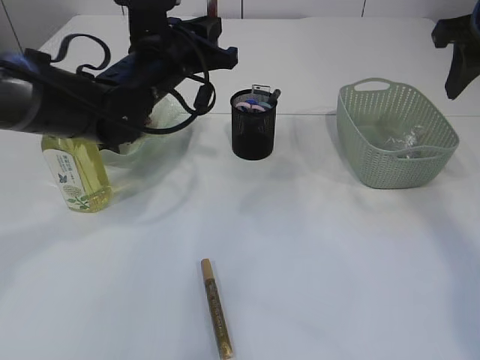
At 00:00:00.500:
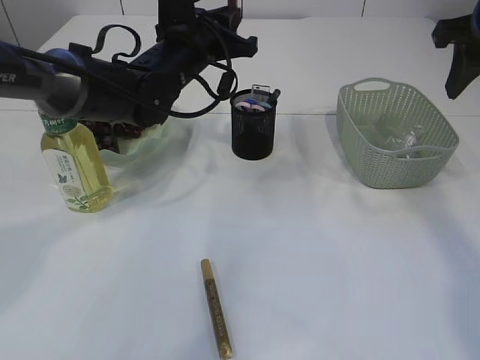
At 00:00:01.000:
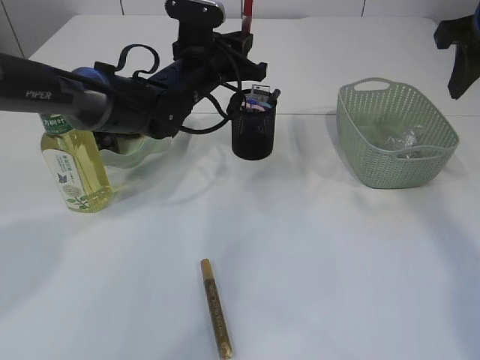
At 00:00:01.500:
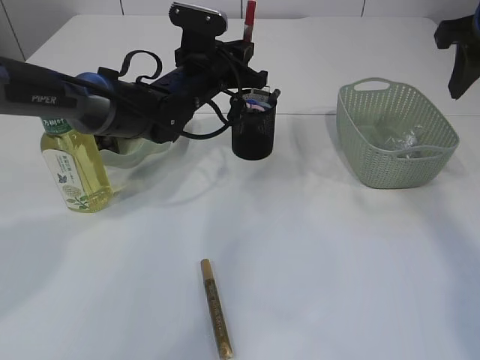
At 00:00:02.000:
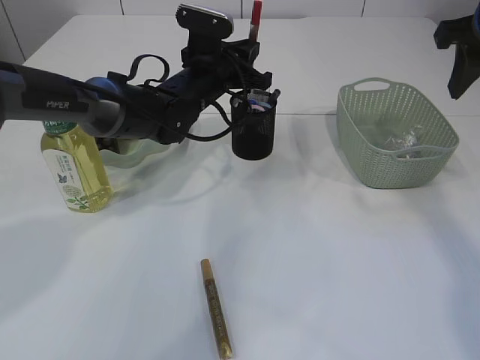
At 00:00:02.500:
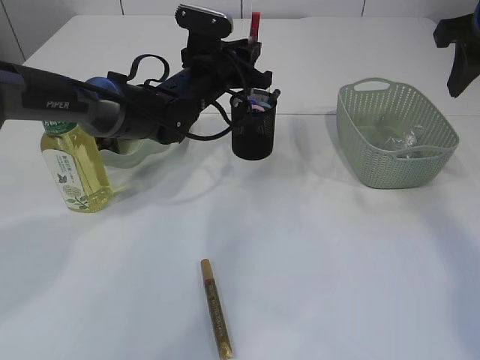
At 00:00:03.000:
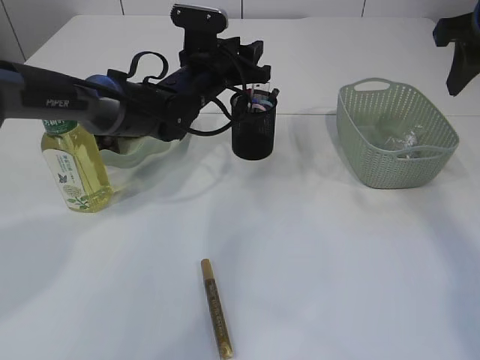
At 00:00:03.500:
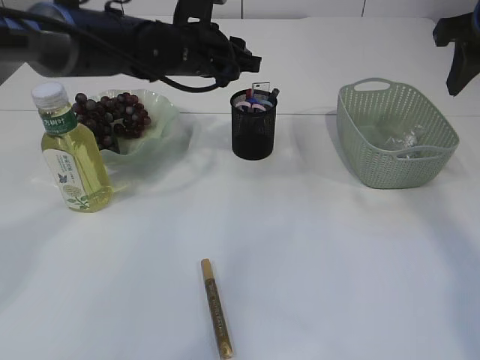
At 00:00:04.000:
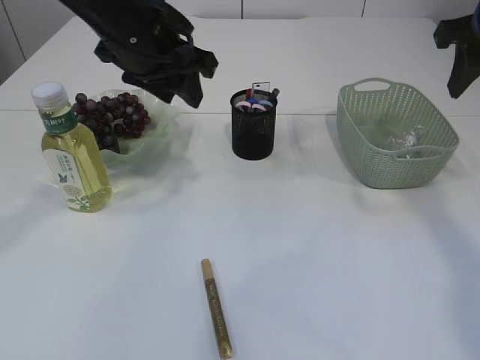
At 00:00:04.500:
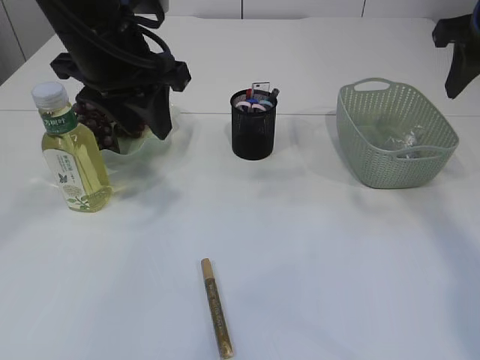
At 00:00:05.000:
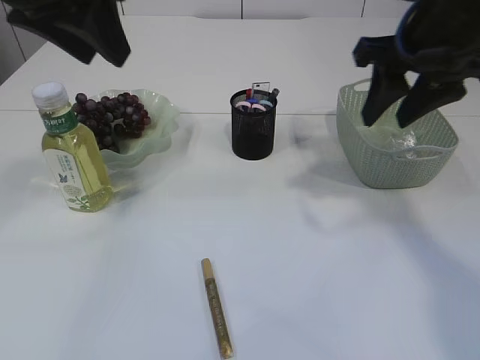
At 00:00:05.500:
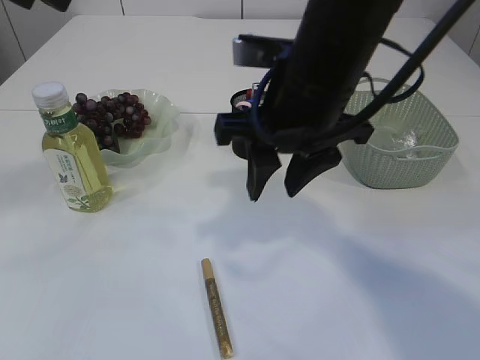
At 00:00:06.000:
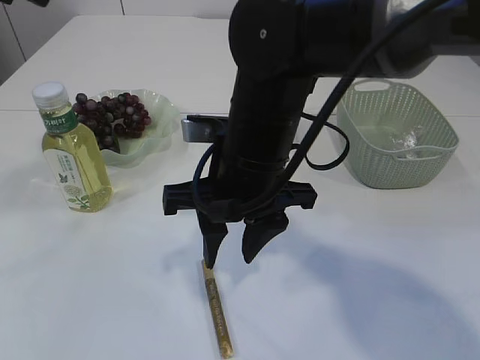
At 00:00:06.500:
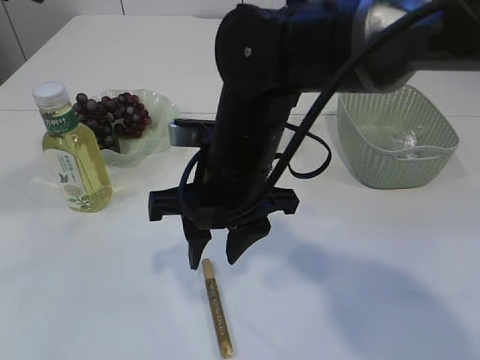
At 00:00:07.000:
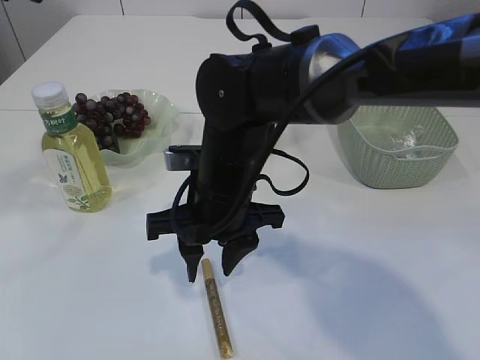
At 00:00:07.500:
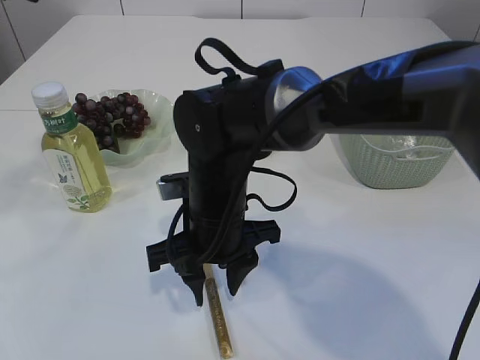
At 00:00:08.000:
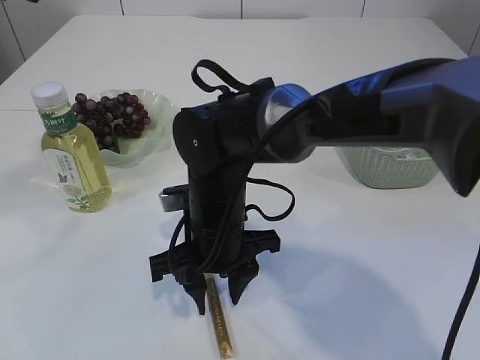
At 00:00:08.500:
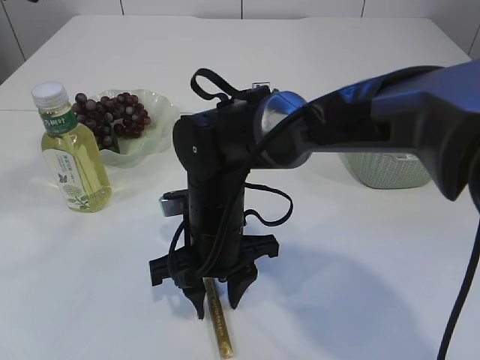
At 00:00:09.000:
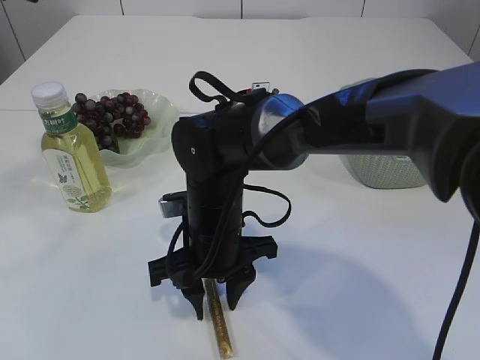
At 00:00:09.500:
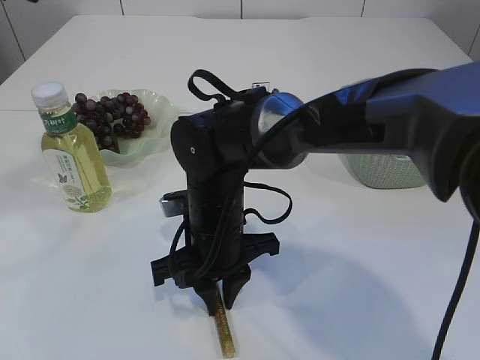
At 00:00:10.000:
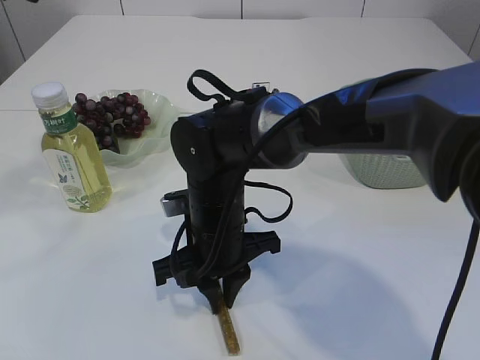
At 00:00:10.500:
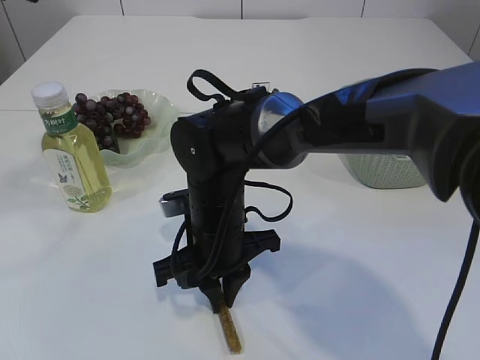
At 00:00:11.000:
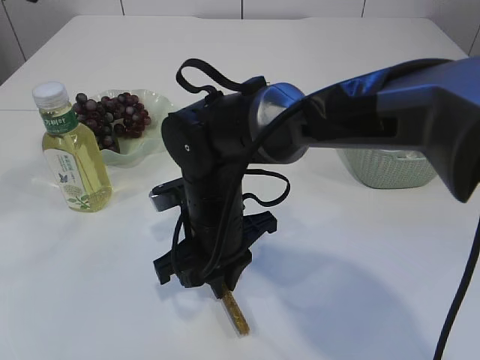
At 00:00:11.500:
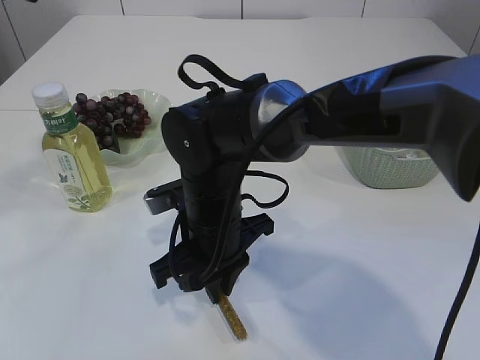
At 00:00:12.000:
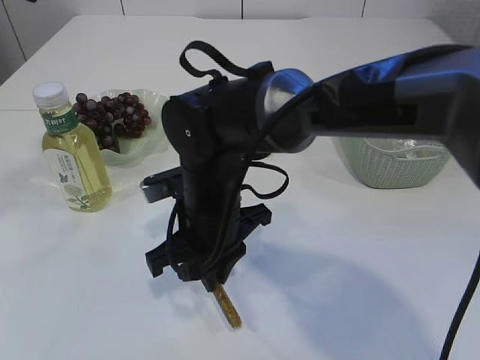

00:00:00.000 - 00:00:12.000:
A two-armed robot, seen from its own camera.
Step, 00:00:00.000 - 00:00:03.500: place the red glue into the pen holder.
00:00:00.000 - 00:00:02.000: The left gripper heads forward, covering approximately 5 cm.
00:00:02.000 - 00:00:04.000: The left gripper shifts roughly 15 cm upward, backward and to the left, and opens.
00:00:04.000 - 00:00:06.000: The left gripper heads upward, backward and to the left, covering approximately 20 cm; the right gripper goes some 30 cm to the left and downward.
00:00:06.000 - 00:00:08.000: The right gripper shifts roughly 10 cm downward.
00:00:08.000 - 00:00:10.000: The right gripper closes up.
00:00:10.000 - 00:00:12.000: The grippers make only small movements.

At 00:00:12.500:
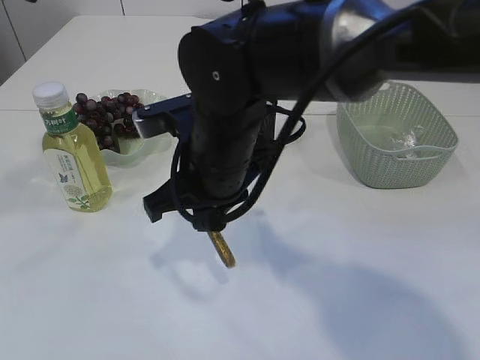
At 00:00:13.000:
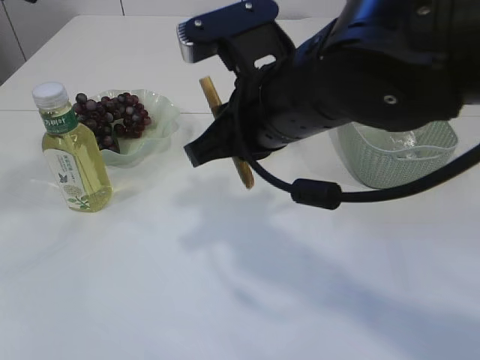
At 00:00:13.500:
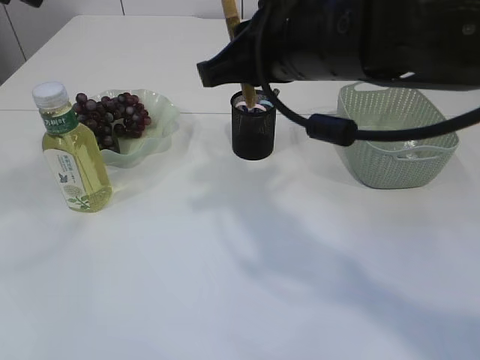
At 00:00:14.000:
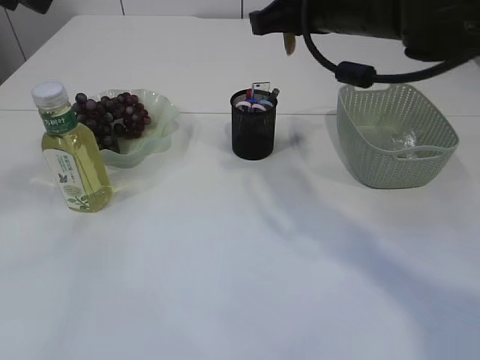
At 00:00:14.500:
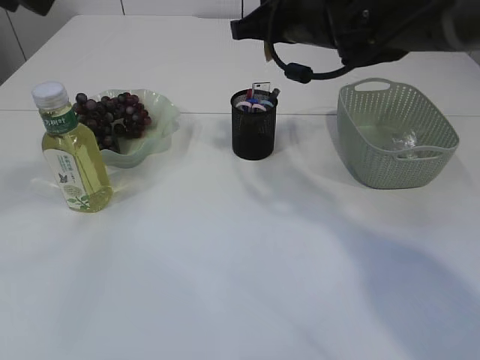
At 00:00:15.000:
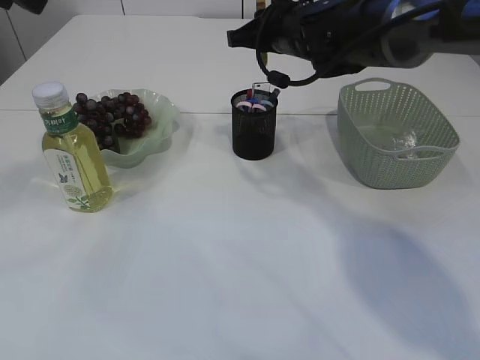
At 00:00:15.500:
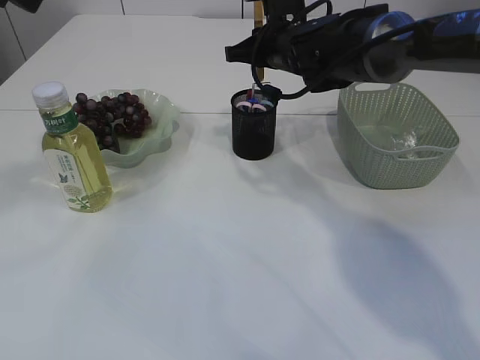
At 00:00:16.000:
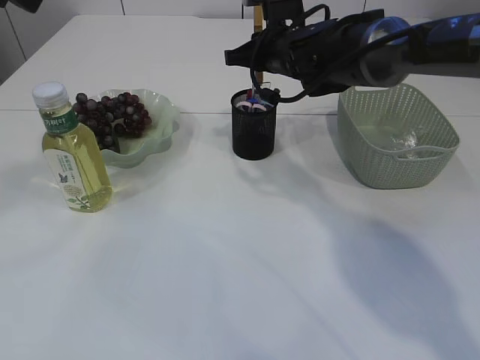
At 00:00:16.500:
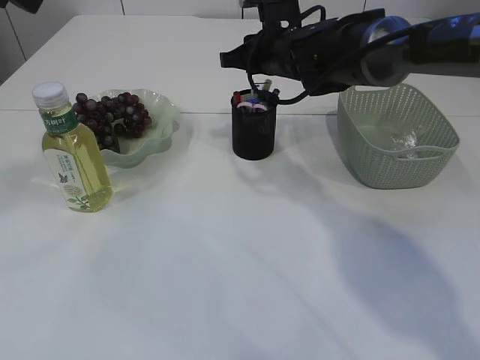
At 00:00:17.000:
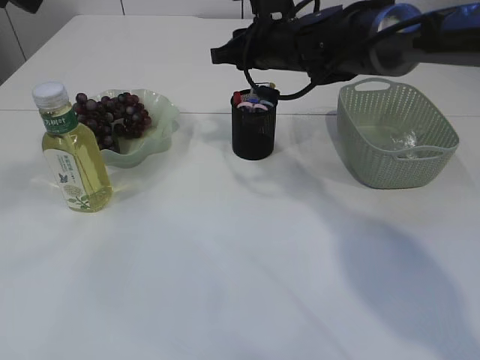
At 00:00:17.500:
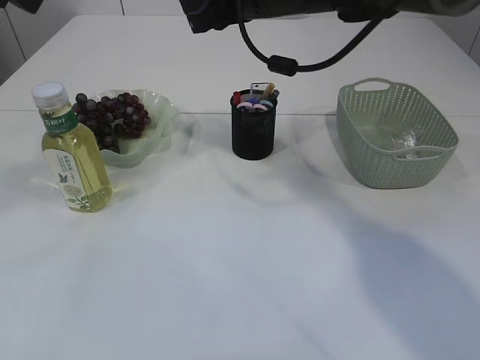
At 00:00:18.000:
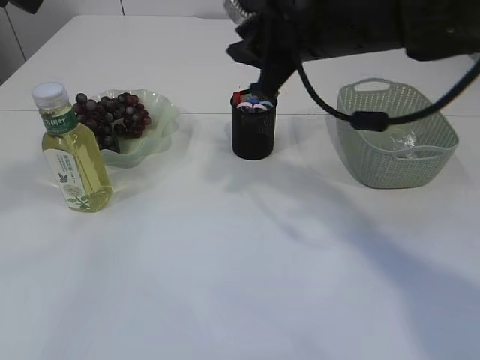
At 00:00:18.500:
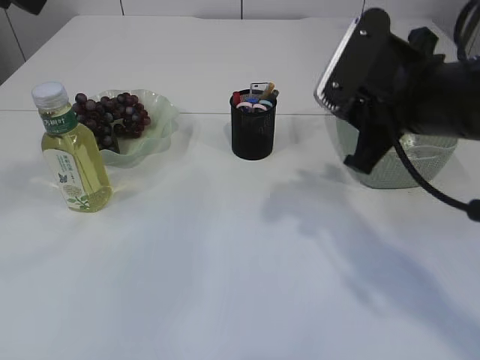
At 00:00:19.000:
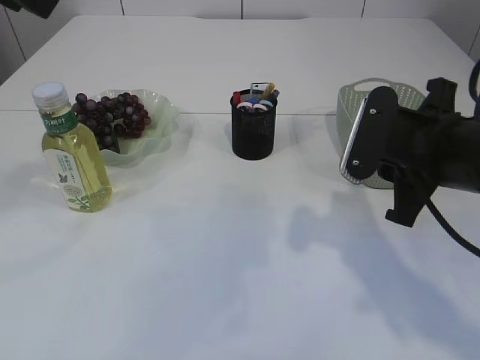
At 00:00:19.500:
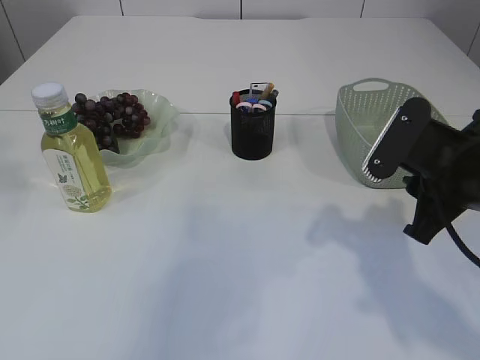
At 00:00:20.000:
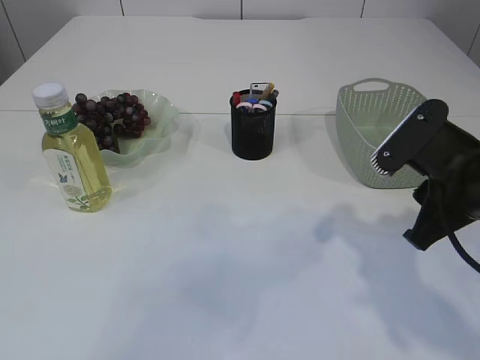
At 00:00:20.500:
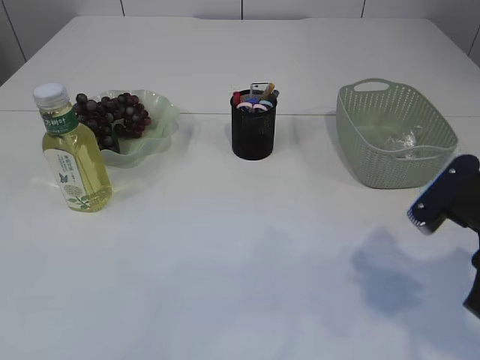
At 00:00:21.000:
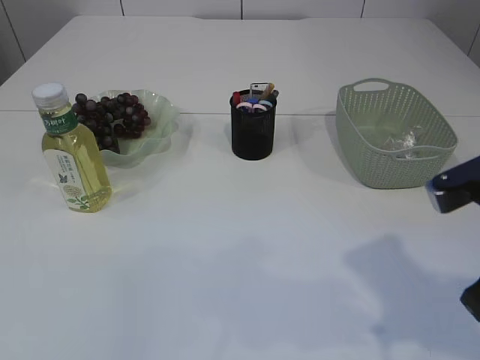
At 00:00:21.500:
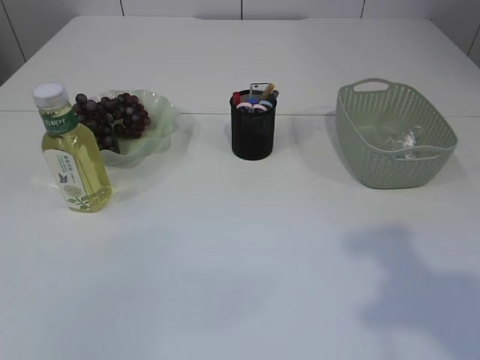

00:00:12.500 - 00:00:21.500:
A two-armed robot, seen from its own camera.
Step, 00:00:13.000 - 00:00:17.000: place the yellow glue into the pen holder.
00:00:12.500 - 00:00:14.500: The right gripper is displaced forward, to the right and upward by roughly 20 cm.
00:00:14.500 - 00:00:17.000: The right gripper goes roughly 10 cm forward and downward.
00:00:17.000 - 00:00:19.500: The left gripper travels to the left by approximately 10 cm. Meanwhile the right gripper shifts approximately 25 cm backward and to the right.
00:00:19.500 - 00:00:21.500: The right gripper moves upward and backward, about 20 cm.

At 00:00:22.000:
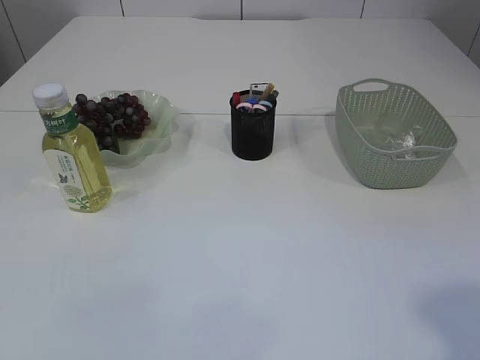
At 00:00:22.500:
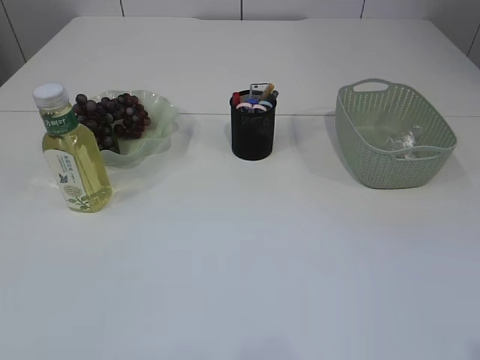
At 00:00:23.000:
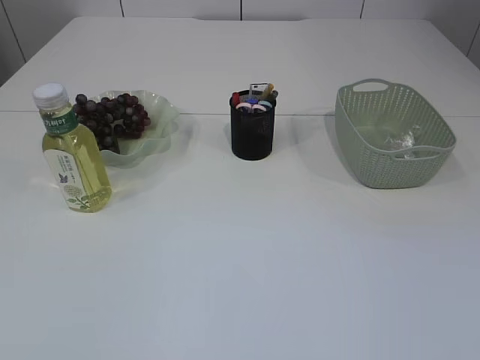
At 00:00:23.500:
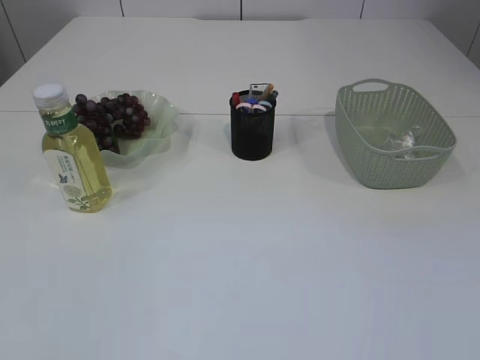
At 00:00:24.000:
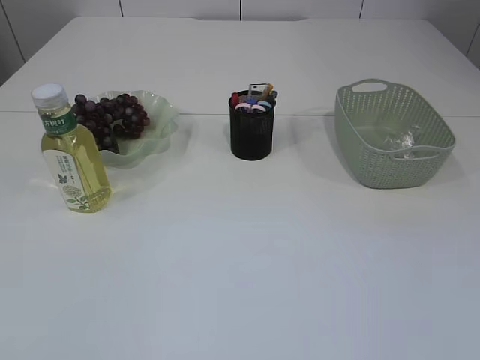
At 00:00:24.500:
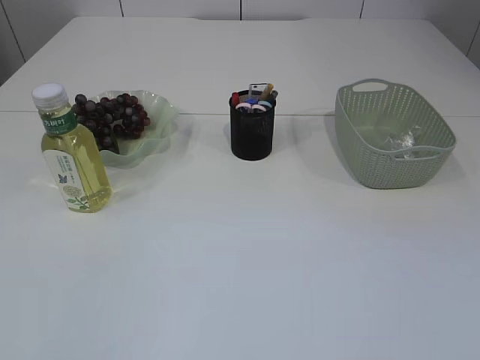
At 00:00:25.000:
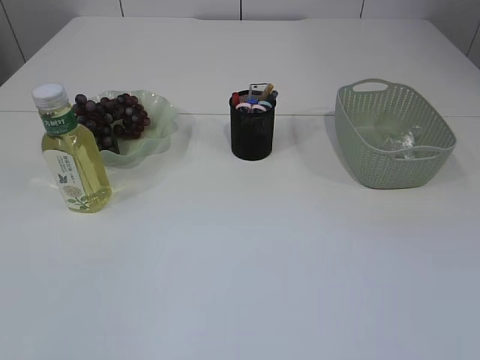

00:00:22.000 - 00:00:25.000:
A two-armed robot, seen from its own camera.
00:00:22.000 - 00:00:23.500: The right gripper goes some 15 cm downward and backward.
